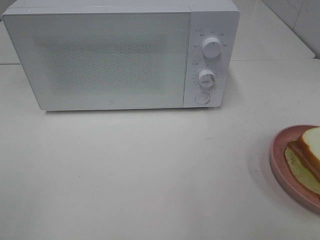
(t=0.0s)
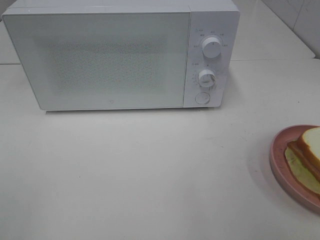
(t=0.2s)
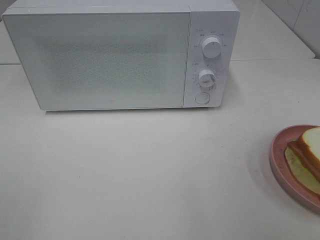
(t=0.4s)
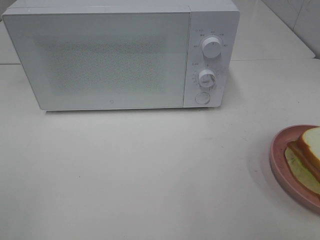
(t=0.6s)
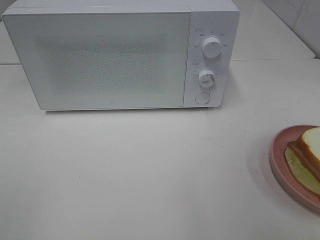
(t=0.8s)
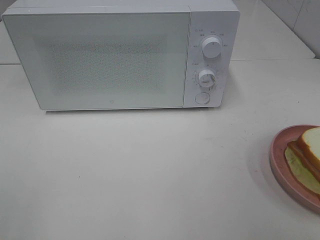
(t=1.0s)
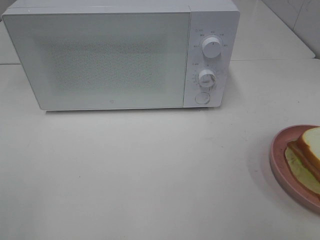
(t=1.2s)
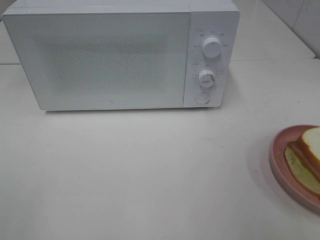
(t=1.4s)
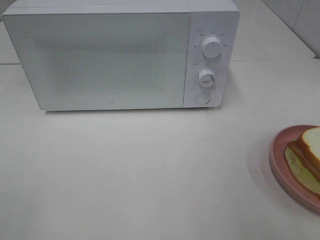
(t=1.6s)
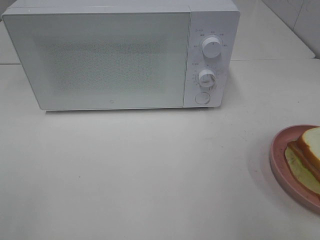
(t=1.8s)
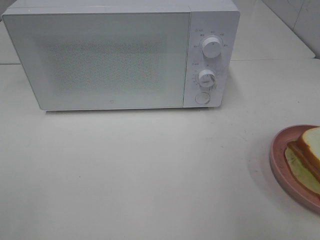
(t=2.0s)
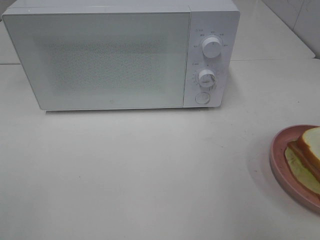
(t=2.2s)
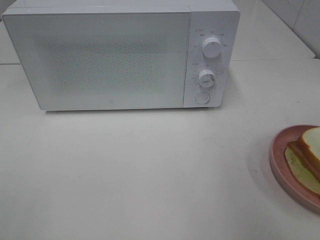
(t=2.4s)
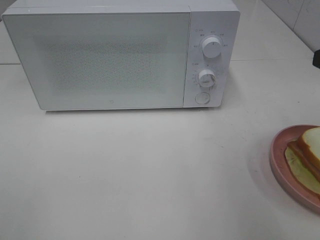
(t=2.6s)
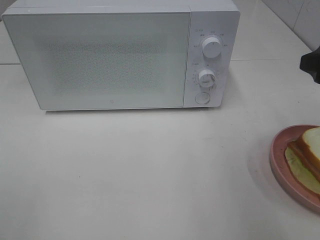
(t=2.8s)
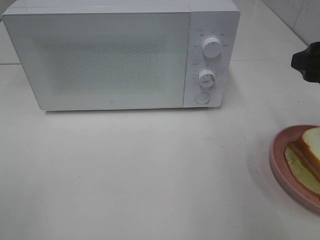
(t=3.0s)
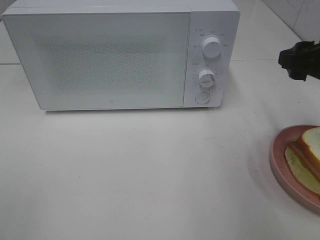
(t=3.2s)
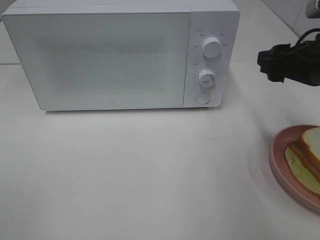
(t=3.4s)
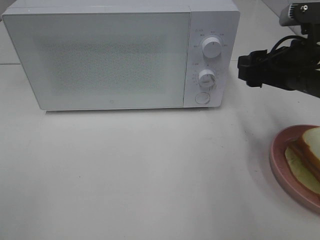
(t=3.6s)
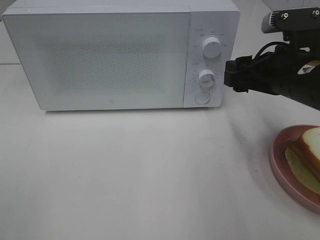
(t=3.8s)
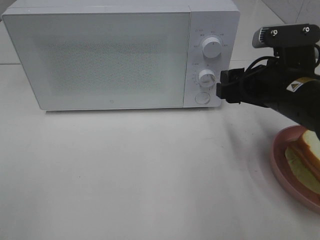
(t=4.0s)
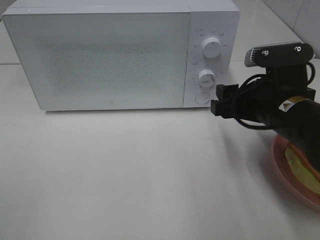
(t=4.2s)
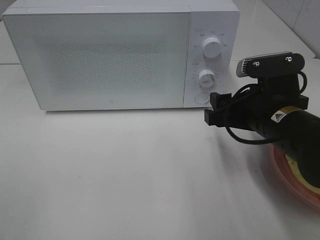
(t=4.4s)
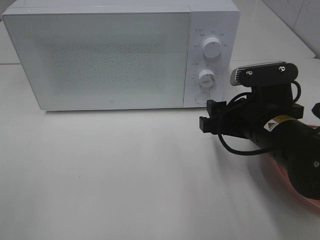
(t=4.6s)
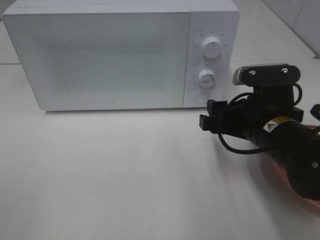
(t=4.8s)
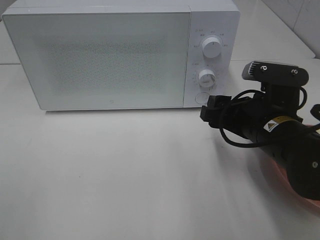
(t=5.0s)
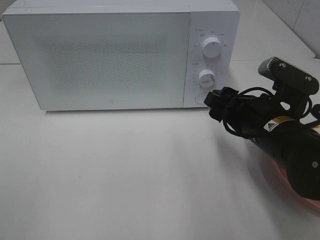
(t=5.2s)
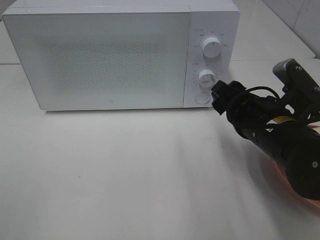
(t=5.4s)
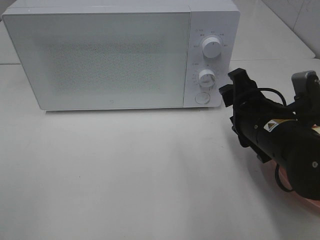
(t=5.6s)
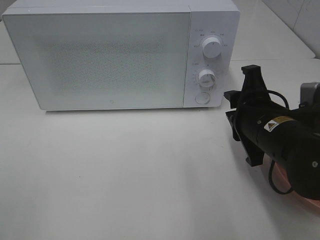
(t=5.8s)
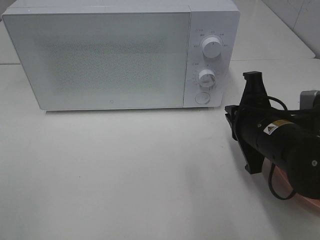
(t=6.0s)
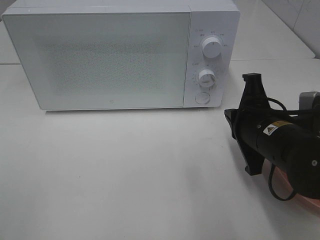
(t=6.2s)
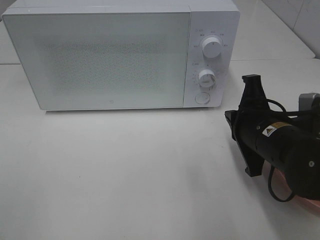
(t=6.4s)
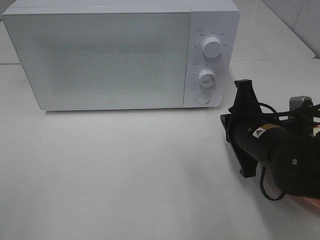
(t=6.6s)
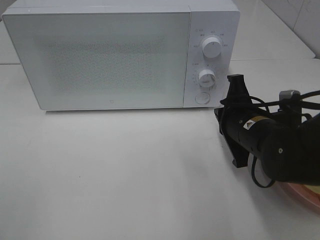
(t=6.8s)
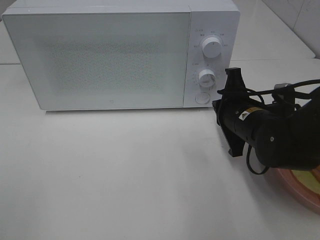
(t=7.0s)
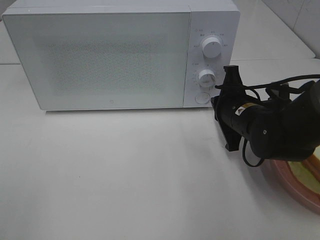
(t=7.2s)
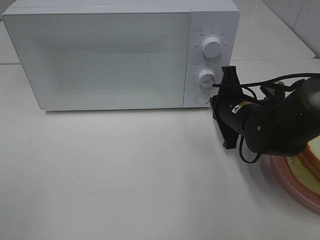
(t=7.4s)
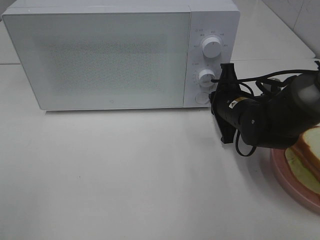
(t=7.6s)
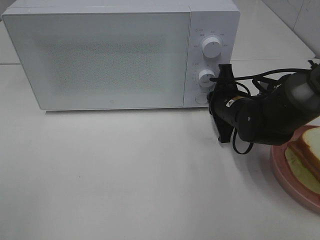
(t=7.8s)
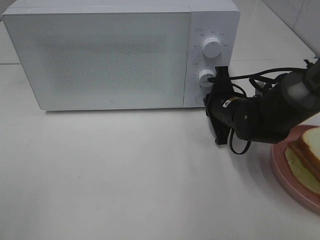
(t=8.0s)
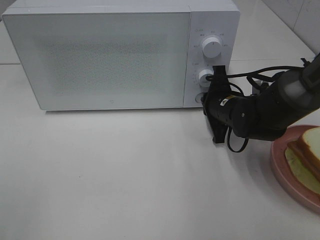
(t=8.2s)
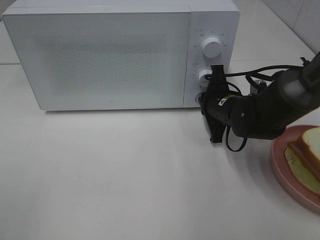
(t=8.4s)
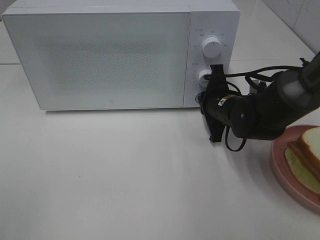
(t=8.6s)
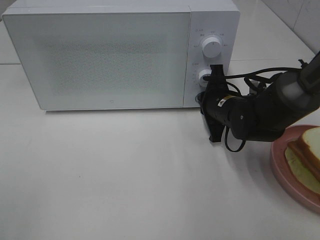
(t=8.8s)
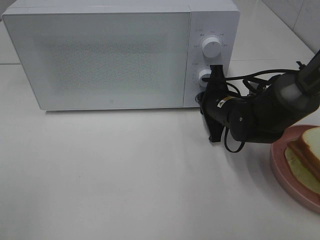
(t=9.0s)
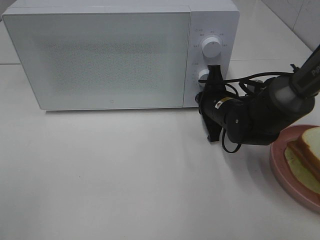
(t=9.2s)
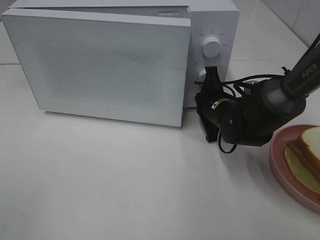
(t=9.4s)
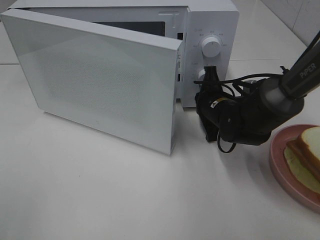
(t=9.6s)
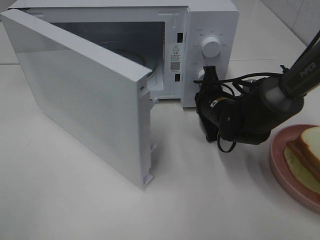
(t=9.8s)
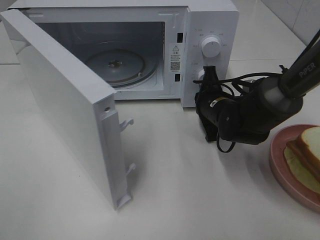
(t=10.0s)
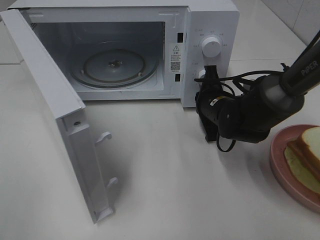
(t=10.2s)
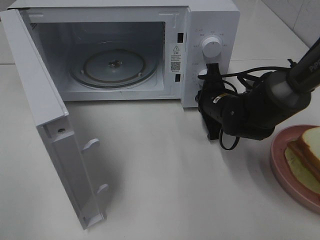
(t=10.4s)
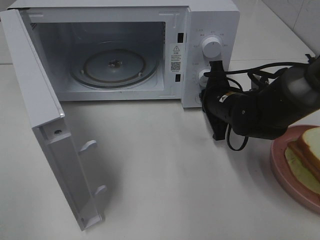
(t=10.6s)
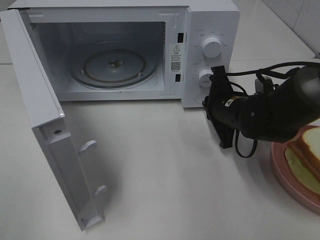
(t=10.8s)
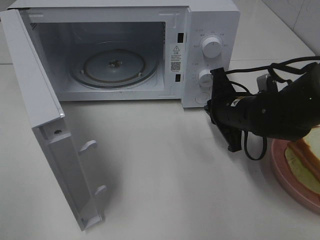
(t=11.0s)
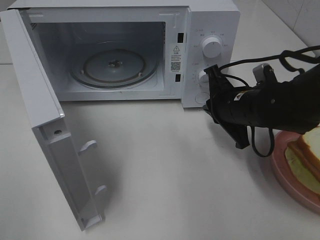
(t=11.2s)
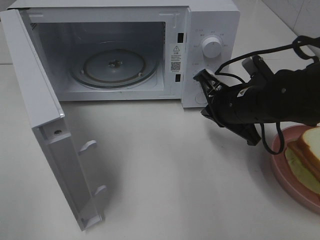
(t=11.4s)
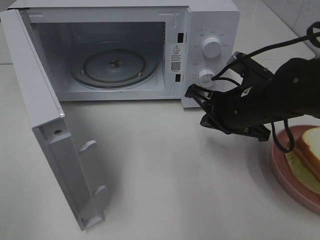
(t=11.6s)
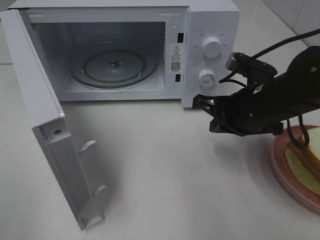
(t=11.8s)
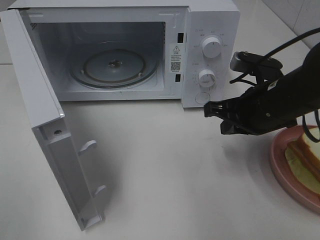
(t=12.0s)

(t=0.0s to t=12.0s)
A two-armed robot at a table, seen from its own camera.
Task of the whole recording: Heat Sandwich.
Step, t=0.0s - t=10.8s: Right hand: press the switch.
t=1.6s - t=3.0s: The right gripper heads forward, covering approximately 15 cm.
t=3.0s - t=4.4s: The right gripper heads to the left and downward, covering roughly 15 cm.
t=4.4s - t=6.0s: The right gripper closes its fingers.
t=6.0s - t=7.6s: The right gripper is displaced forward by about 10 cm.
t=7.6s - t=9.0s: The grippers move only a little.
t=10.4s - t=12.0s: The right gripper goes some 10 cm backward and upward.

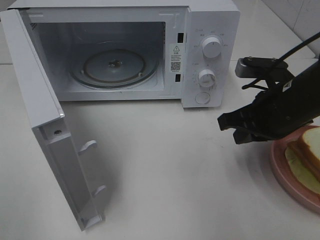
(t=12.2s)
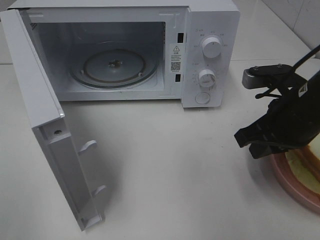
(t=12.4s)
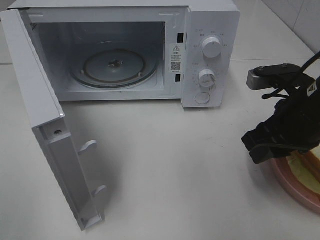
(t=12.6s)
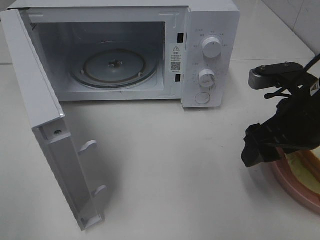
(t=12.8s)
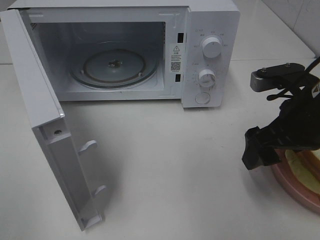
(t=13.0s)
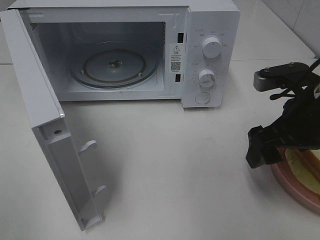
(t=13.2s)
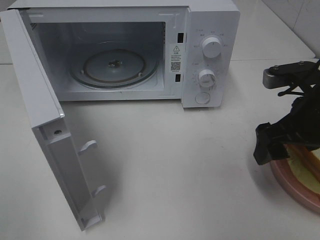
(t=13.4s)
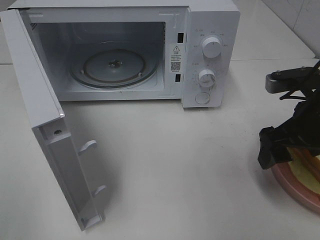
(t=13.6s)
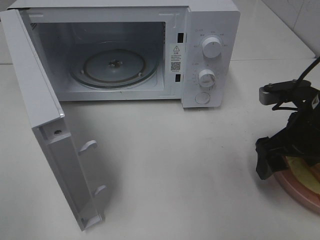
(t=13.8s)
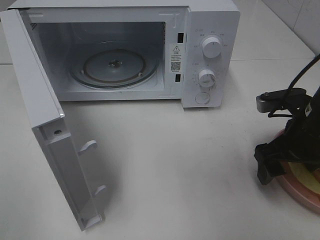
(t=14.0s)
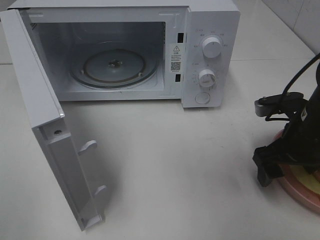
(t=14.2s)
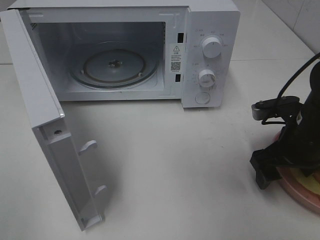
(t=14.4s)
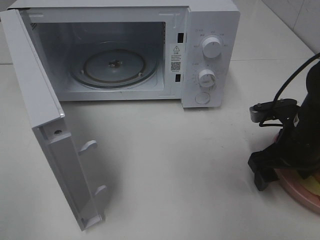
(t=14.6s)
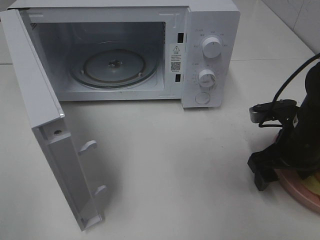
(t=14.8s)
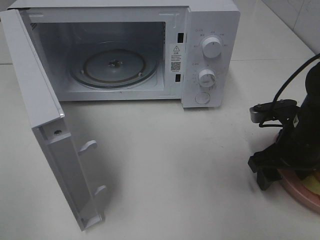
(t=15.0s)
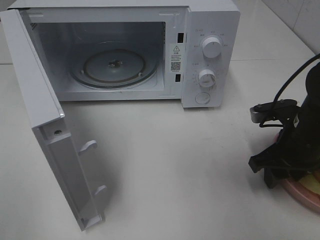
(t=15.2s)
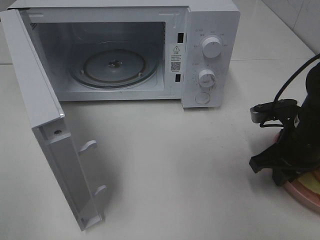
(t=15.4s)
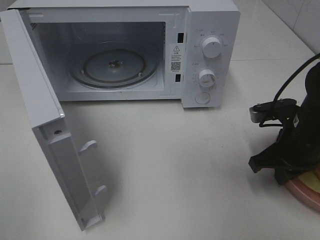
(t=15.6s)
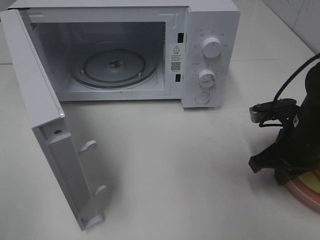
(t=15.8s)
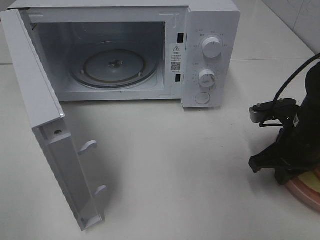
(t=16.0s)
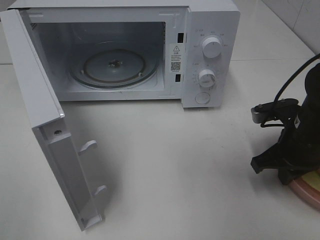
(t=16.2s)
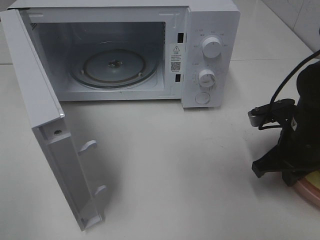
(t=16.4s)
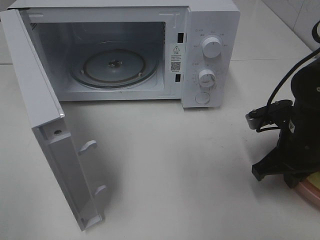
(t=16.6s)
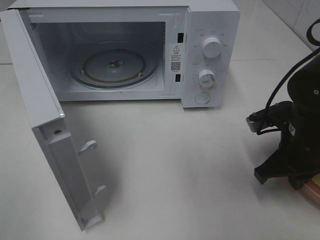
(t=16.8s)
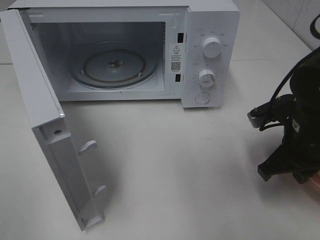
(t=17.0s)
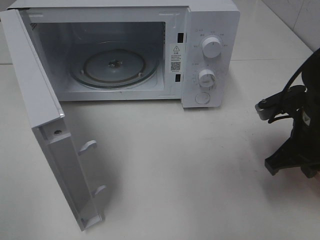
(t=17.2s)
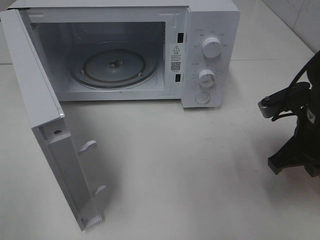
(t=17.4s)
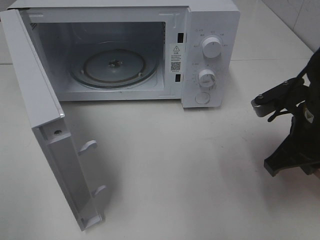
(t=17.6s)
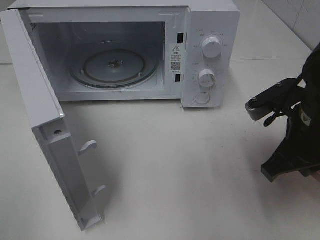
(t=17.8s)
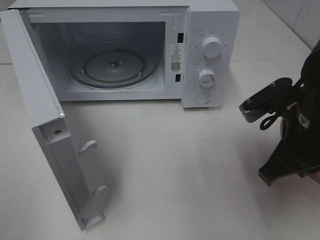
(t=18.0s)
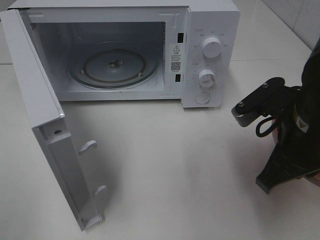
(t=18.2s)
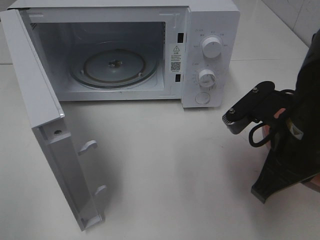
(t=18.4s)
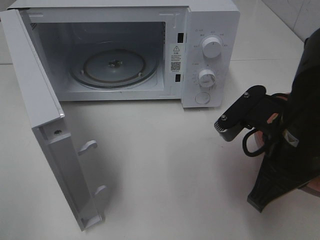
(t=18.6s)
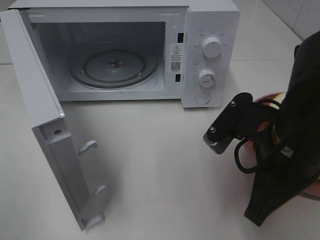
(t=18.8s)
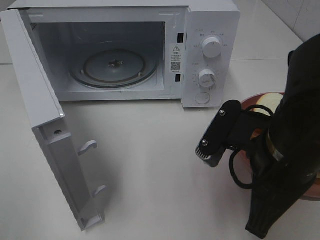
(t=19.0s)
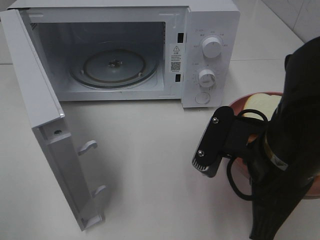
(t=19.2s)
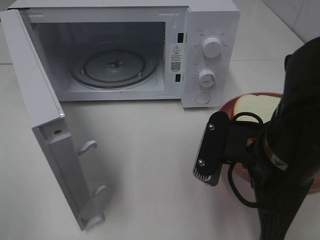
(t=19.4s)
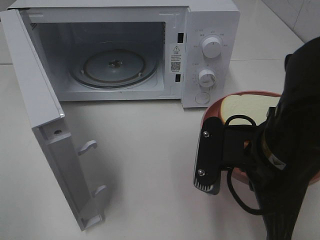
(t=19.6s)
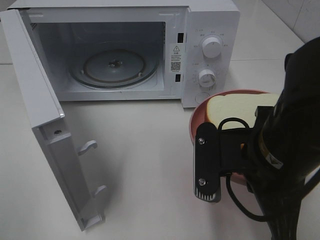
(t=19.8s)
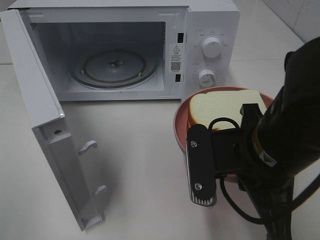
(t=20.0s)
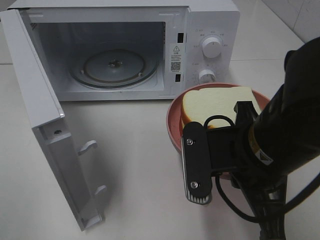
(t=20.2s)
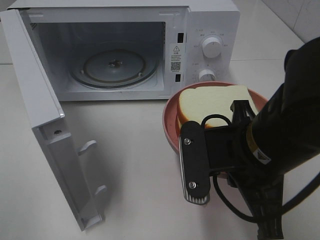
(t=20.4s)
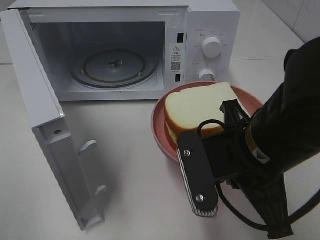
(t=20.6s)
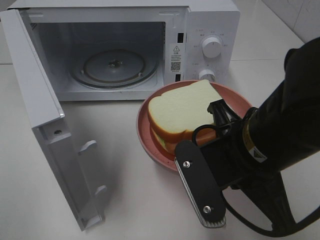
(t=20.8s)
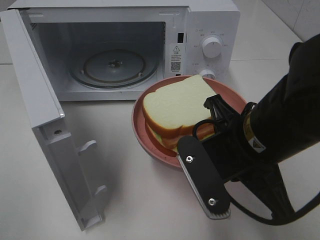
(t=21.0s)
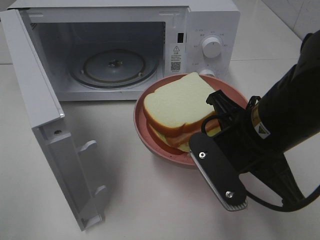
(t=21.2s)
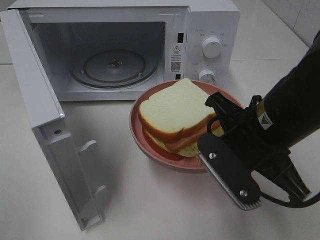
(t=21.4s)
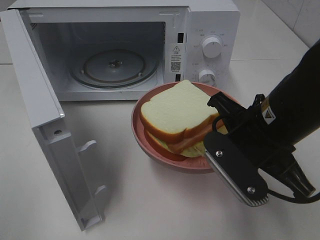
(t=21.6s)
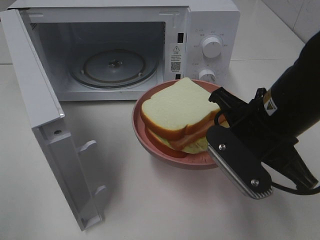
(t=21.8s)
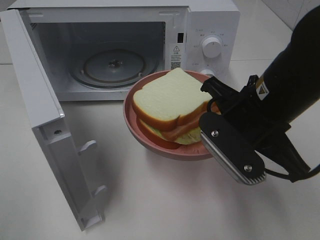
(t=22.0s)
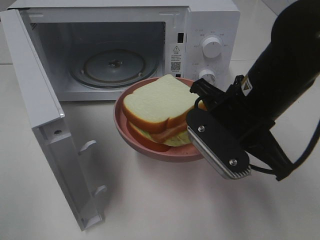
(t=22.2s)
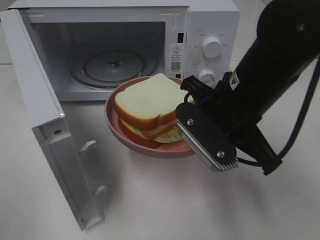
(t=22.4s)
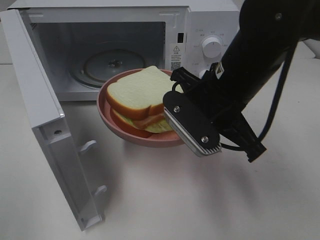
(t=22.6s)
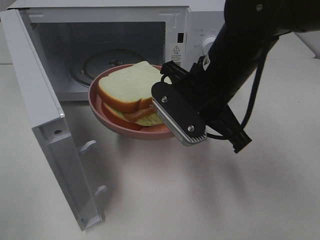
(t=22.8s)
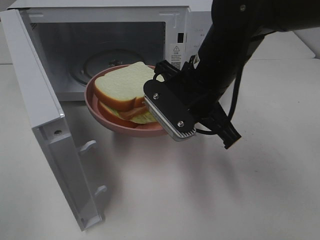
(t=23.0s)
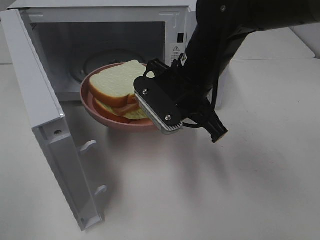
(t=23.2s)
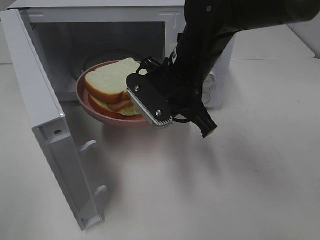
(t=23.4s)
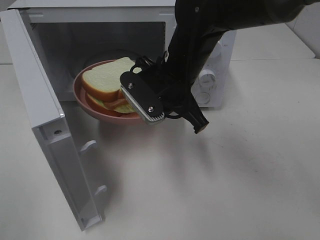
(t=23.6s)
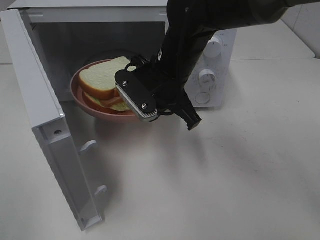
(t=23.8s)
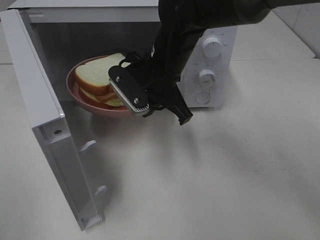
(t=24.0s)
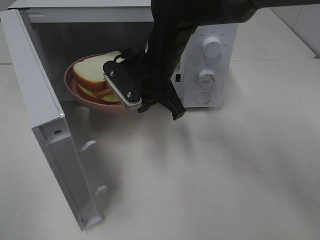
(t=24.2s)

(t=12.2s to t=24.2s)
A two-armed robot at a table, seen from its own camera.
Task of the whole recording: Heat Sandwich.
Step, t=12.2s - t=16.8s: Right hand: grab the plate with the sandwich.
t=12.2s - t=13.8s: The right gripper opens up.
t=13.8s - t=15.2s: There are only small adjustments of the grippers.
t=15.2s - t=16.6s: The right gripper closes.
t=16.6s - t=18.2s: The right gripper goes approximately 10 cm upward and backward.
t=18.2s - t=19.8s: The right gripper shifts some 5 cm to the left.
t=21.2s - t=22.6s: The right gripper goes roughly 5 cm forward.
t=22.6s - t=24.2s: The right gripper travels forward and to the left by approximately 15 cm.
